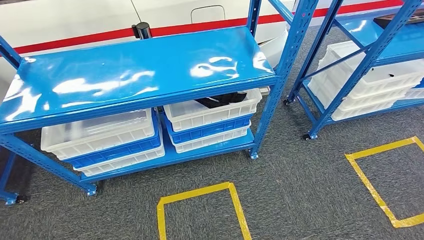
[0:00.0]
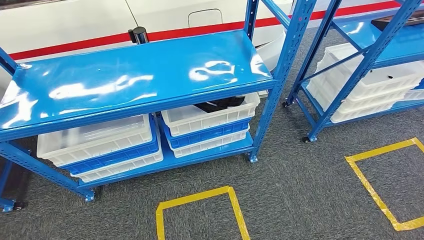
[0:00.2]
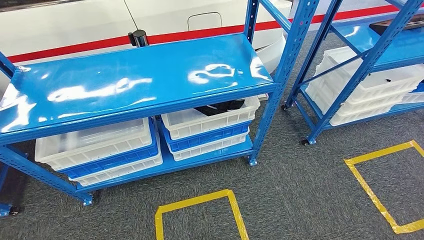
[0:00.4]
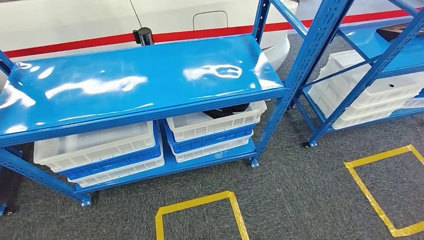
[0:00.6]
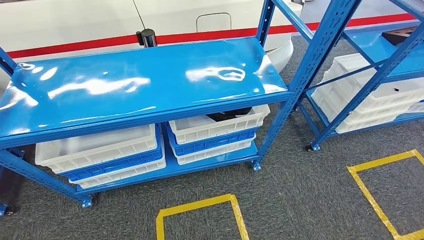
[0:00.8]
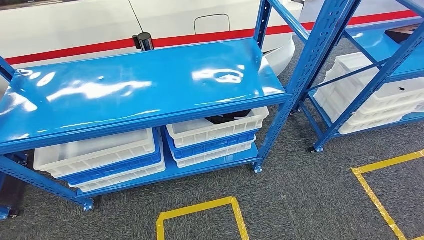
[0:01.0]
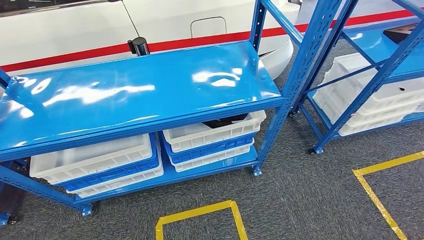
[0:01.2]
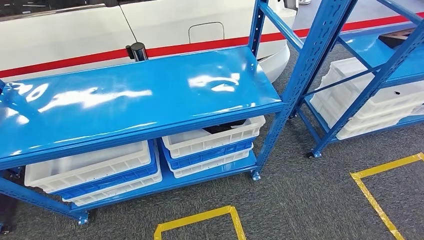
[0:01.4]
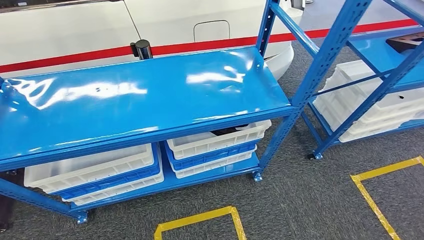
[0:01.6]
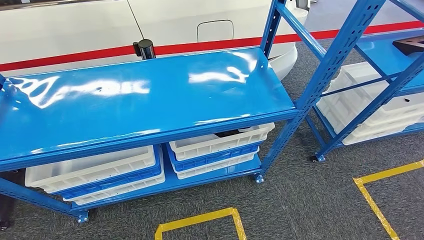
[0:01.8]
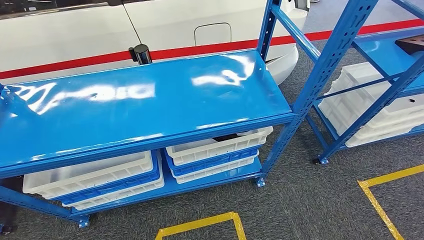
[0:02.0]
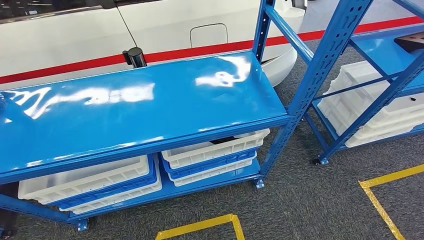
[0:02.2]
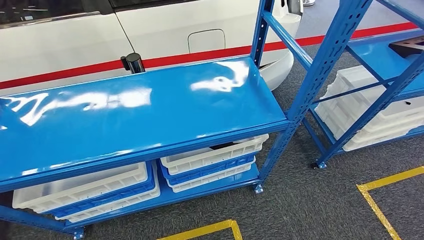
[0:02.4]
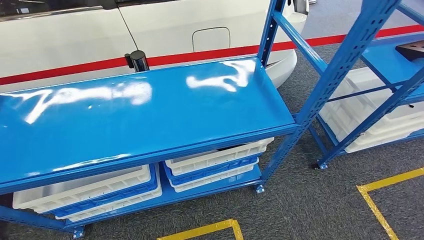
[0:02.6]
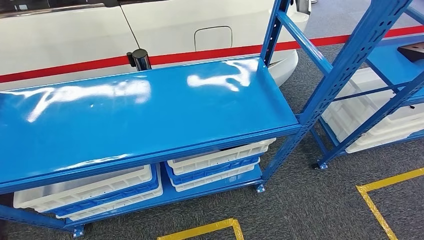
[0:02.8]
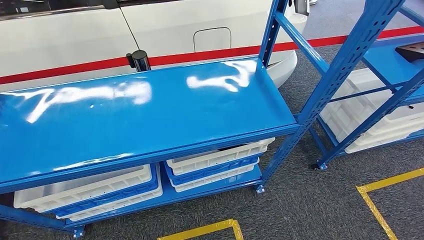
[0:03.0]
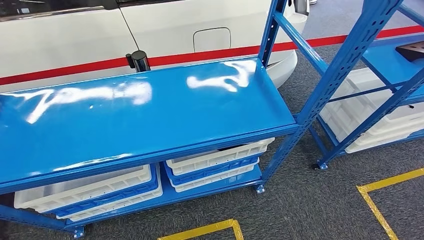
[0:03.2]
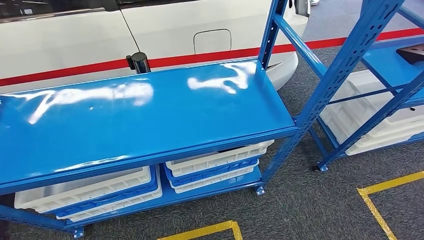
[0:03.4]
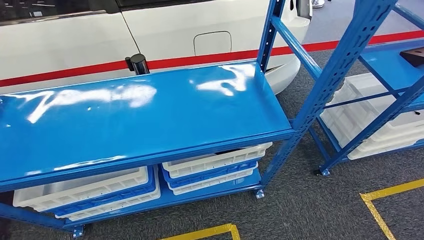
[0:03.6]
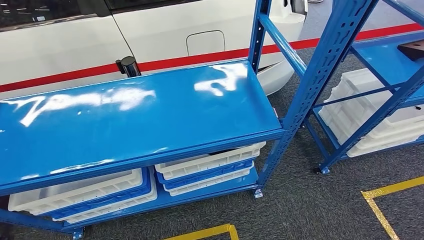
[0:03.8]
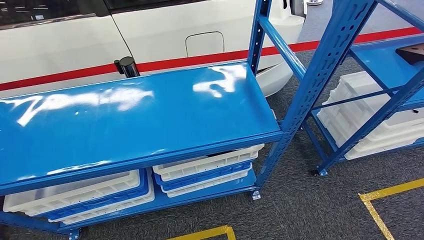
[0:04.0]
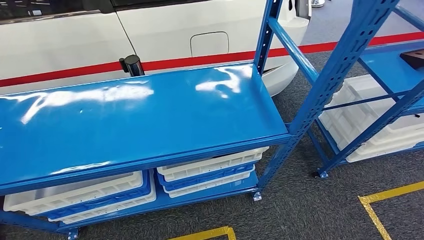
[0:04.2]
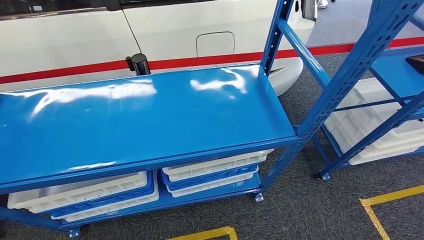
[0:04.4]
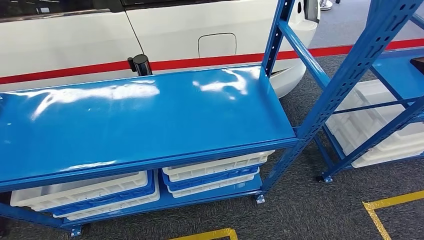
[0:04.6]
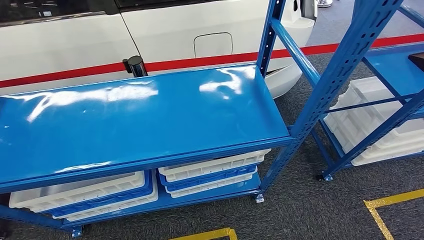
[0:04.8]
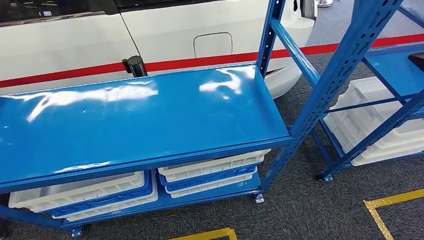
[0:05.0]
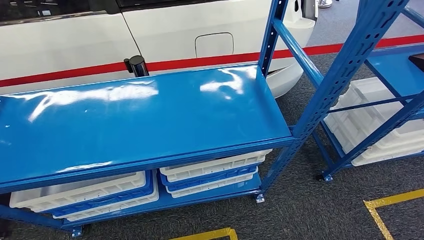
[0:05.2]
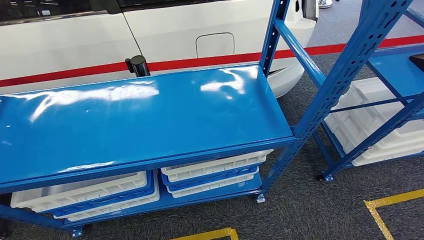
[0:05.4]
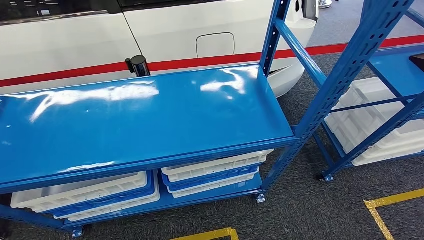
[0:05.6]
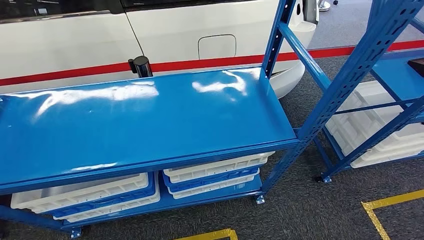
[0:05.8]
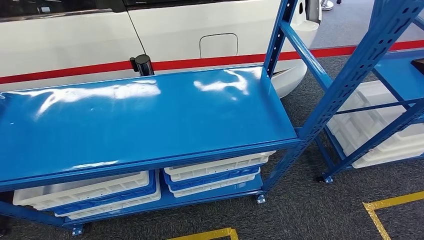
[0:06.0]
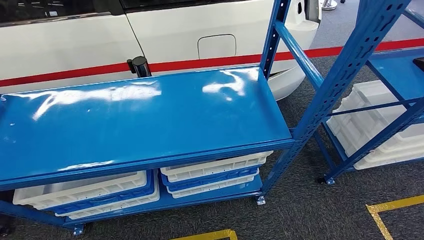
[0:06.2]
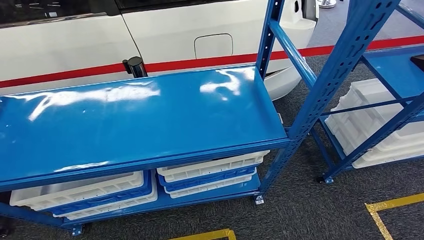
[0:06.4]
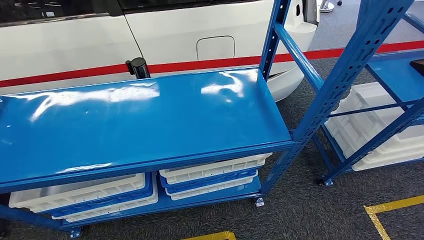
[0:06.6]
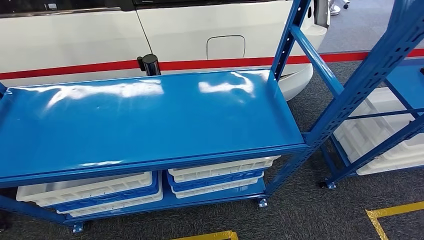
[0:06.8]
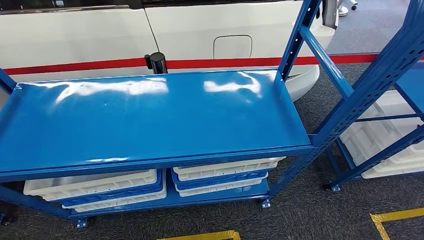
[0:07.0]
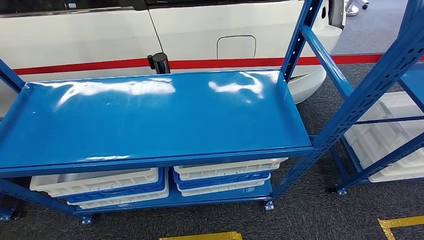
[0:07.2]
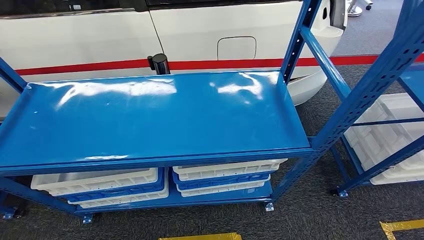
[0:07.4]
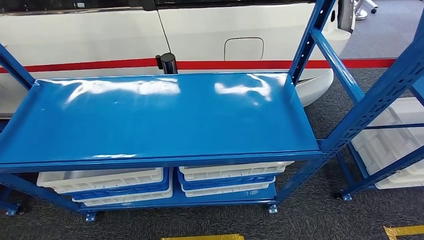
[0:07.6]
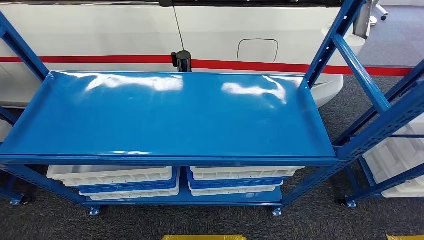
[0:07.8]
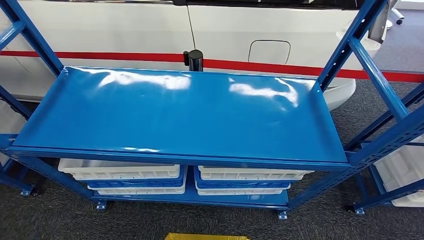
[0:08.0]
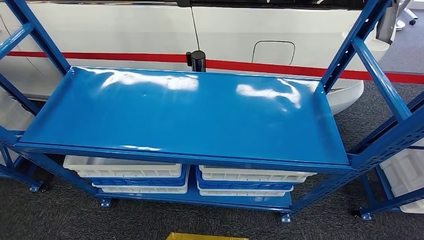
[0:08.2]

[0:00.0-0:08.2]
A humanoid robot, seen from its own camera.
Step, 0:00.0 to 0:08.2: Move to the initial position of the shelf.

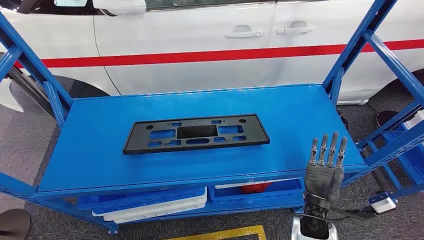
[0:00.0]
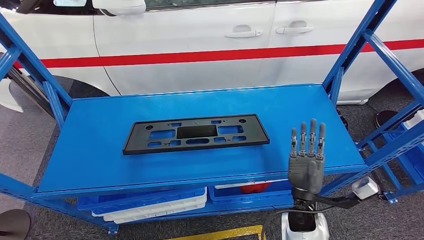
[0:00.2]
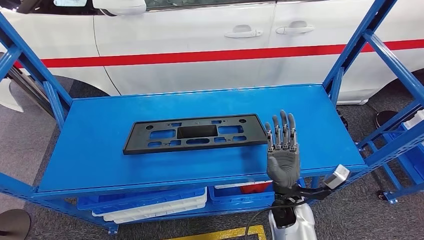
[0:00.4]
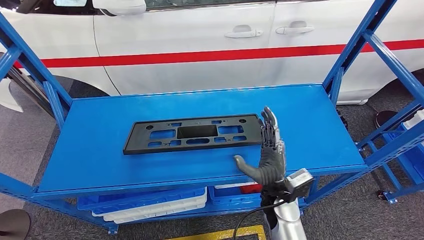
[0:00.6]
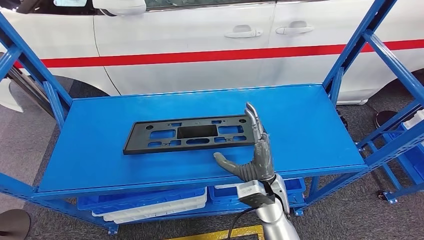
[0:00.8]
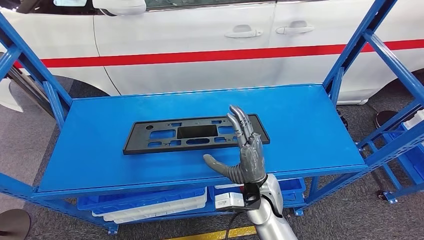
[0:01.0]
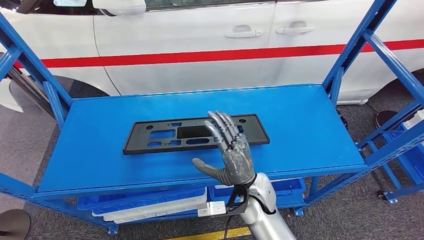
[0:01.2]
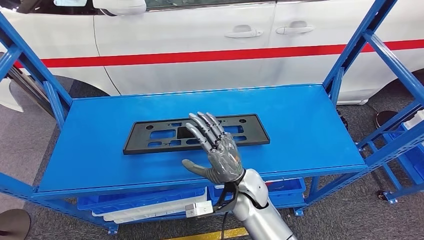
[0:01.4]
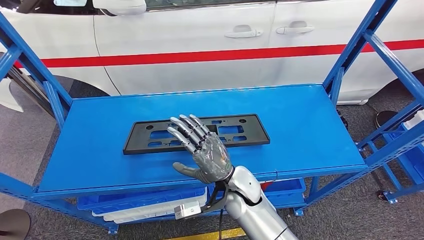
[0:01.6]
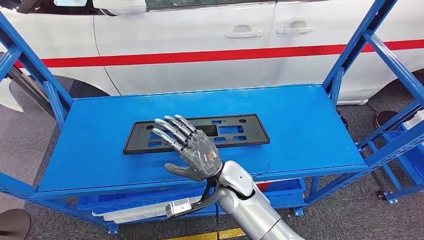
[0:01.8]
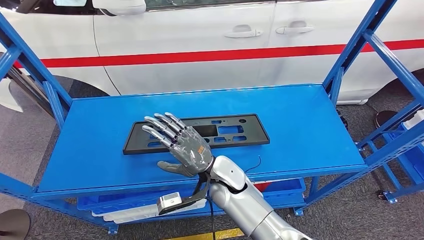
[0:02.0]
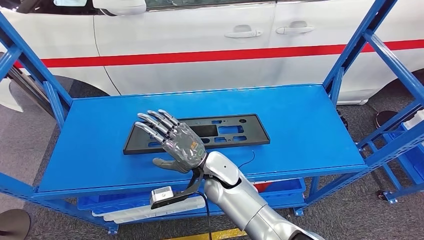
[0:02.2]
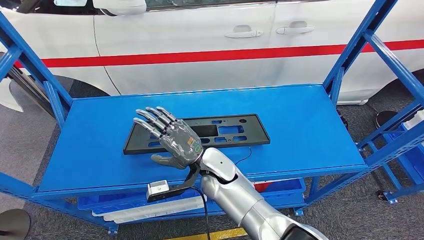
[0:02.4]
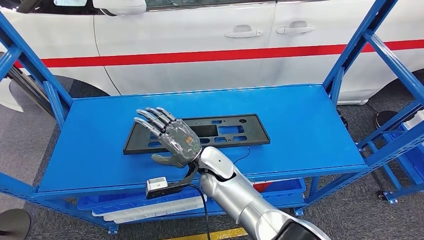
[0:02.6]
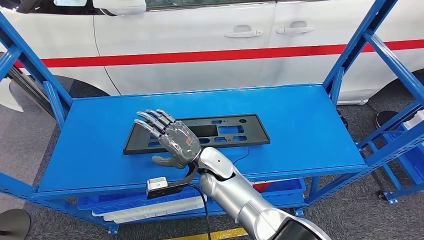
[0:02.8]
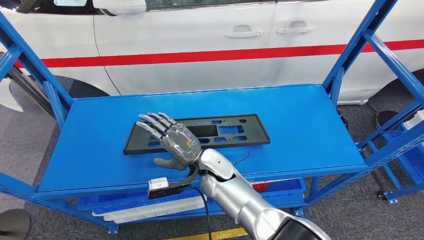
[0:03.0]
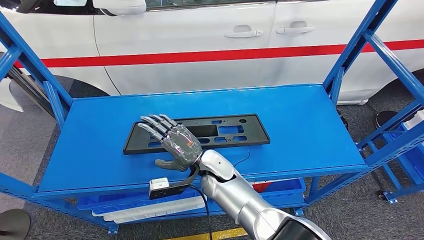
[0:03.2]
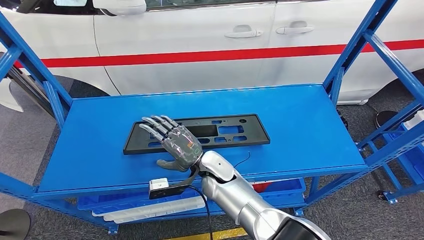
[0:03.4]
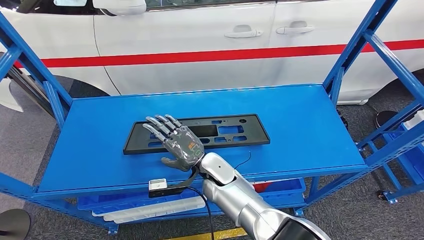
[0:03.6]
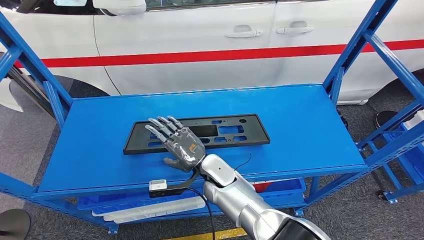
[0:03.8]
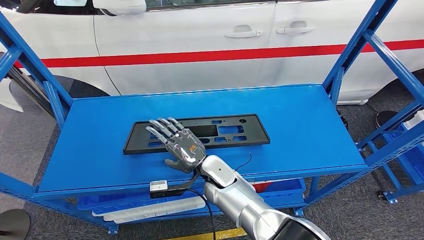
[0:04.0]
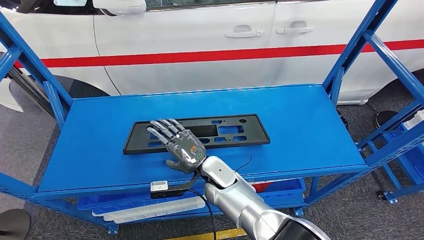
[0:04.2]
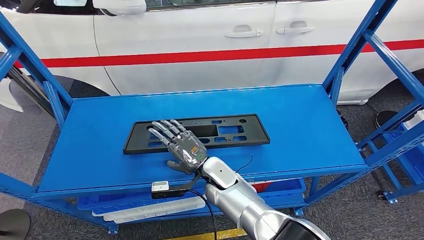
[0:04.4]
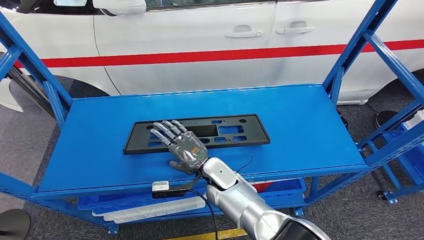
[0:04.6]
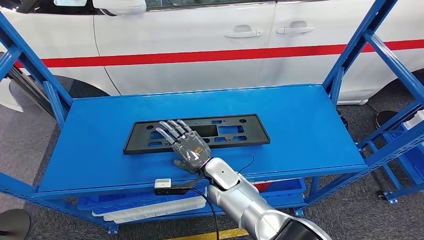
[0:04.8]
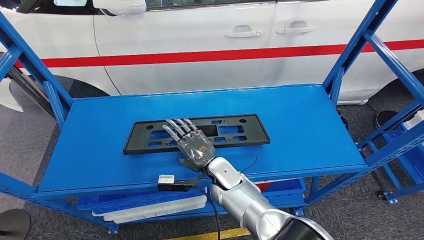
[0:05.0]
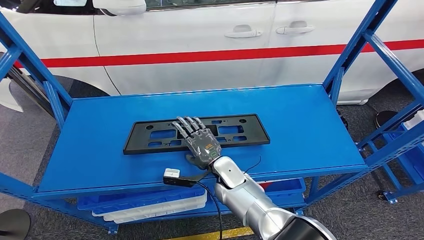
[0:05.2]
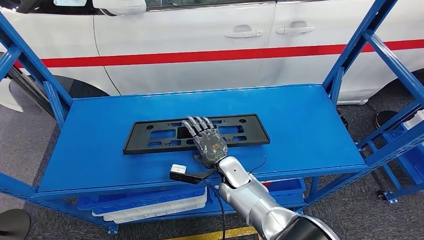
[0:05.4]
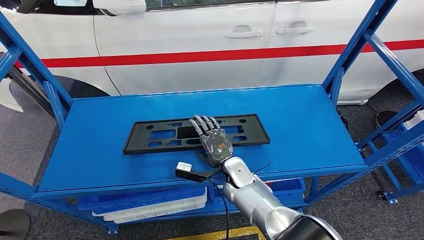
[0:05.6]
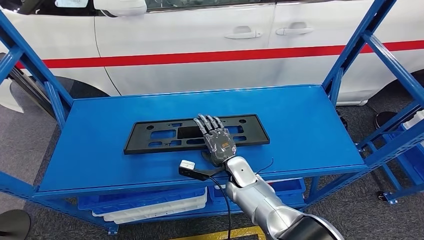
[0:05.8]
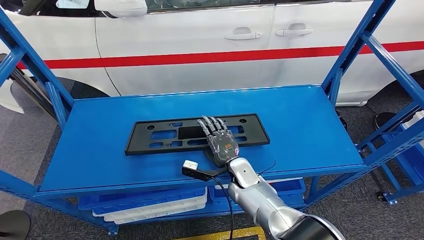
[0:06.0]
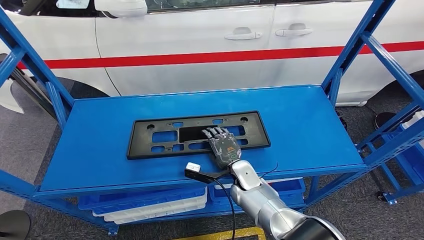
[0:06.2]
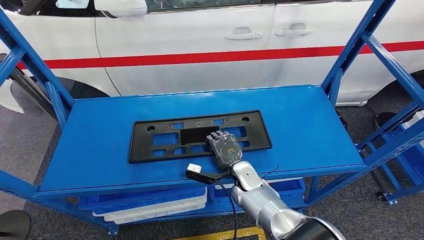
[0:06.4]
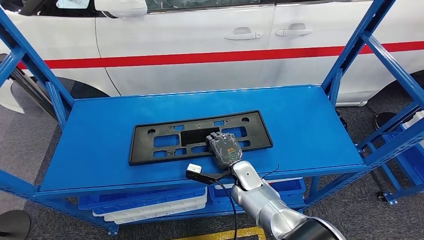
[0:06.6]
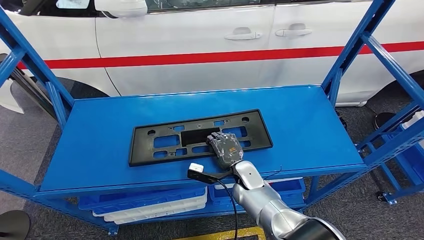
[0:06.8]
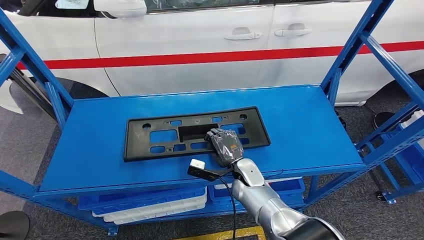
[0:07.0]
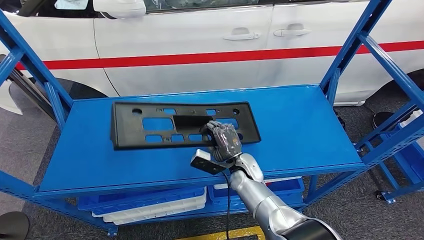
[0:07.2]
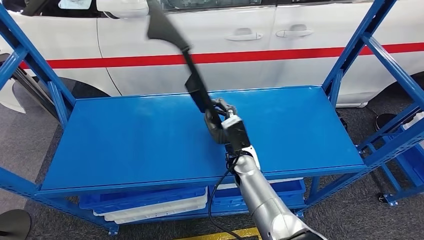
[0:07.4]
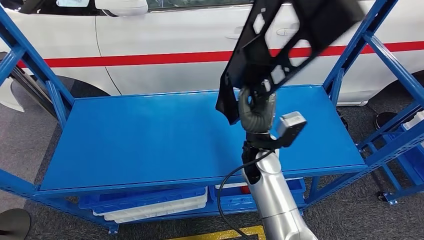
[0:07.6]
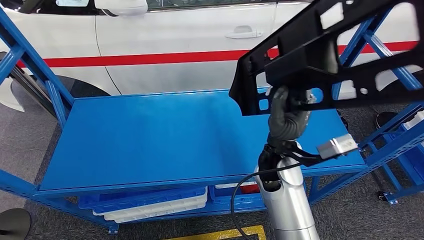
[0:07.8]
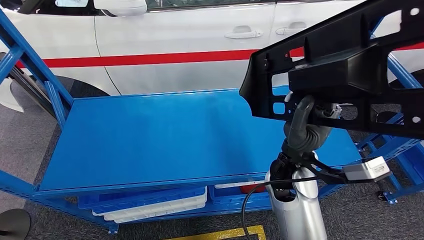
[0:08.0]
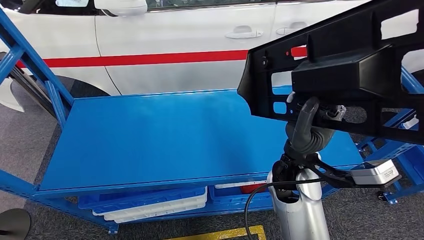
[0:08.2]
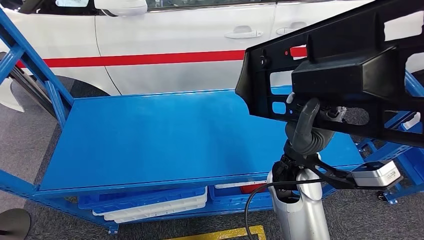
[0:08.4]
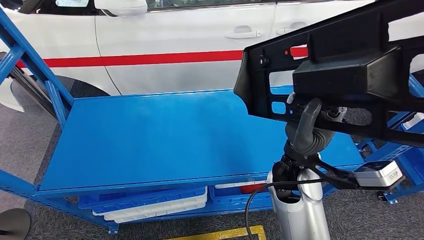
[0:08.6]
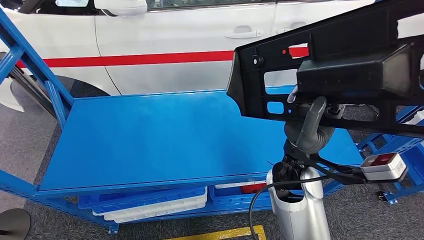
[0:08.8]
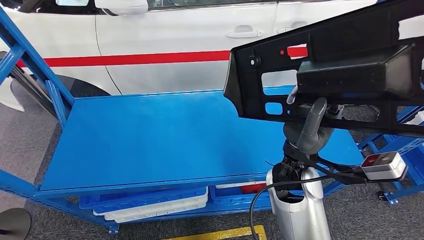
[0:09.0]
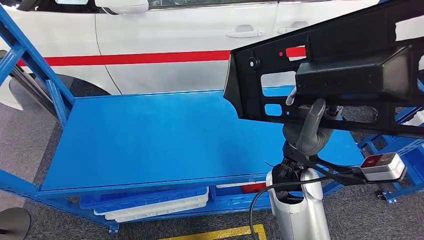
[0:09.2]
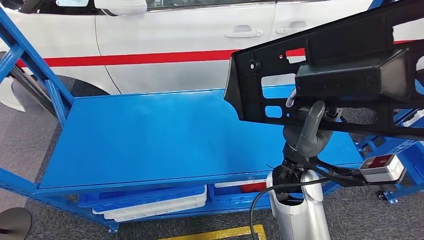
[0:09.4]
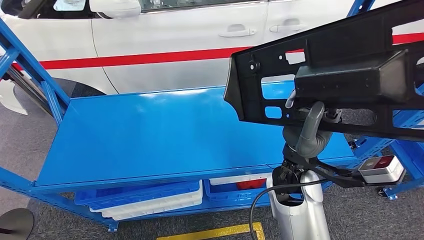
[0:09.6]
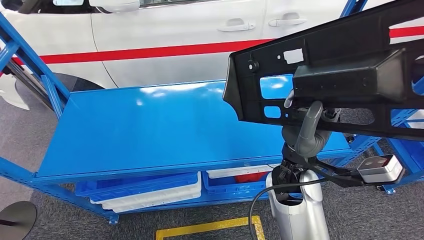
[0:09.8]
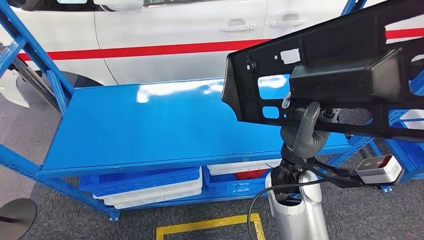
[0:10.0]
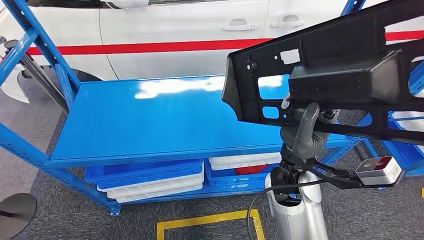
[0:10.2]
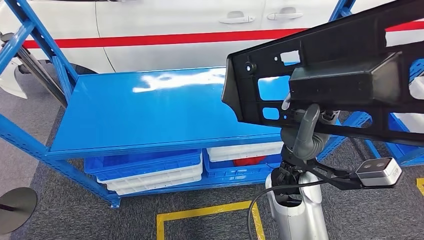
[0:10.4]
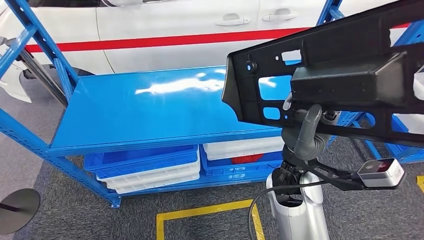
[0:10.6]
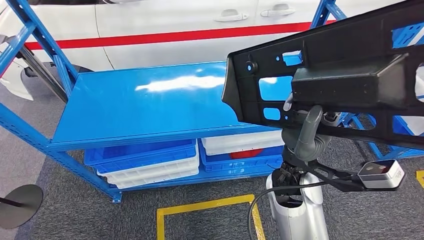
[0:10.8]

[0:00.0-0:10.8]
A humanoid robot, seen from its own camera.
Step, 0:00.0 to 0:08.2: Pick up the large material from the shelf.
0:01.6 to 0:03.0: The right hand travels forward and to the left by about 5 cm.
0:03.0 to 0:04.6: The hands stay close to where they were, moving slightly.
0:04.6 to 0:06.2: The right hand shifts roughly 10 cm to the right.
